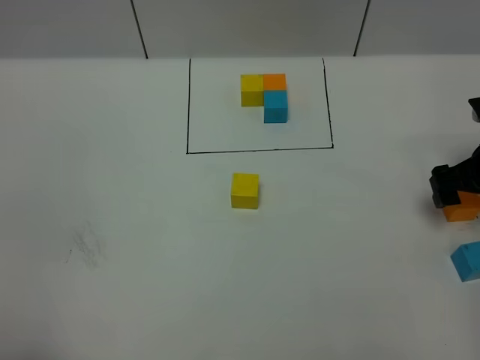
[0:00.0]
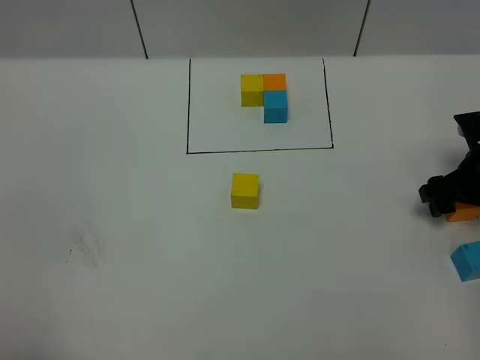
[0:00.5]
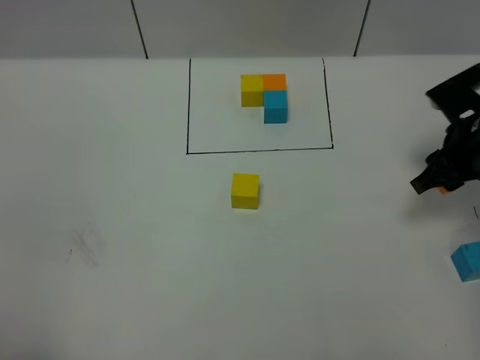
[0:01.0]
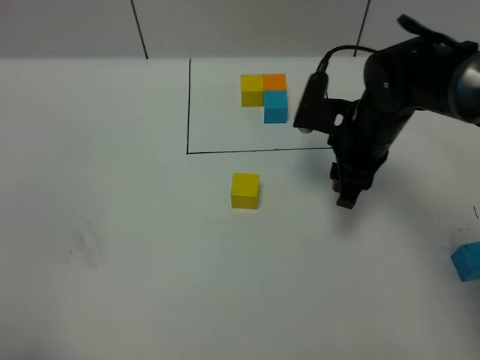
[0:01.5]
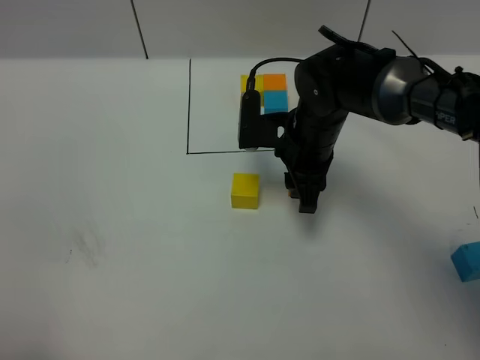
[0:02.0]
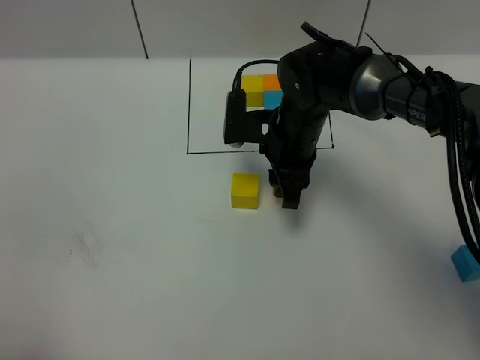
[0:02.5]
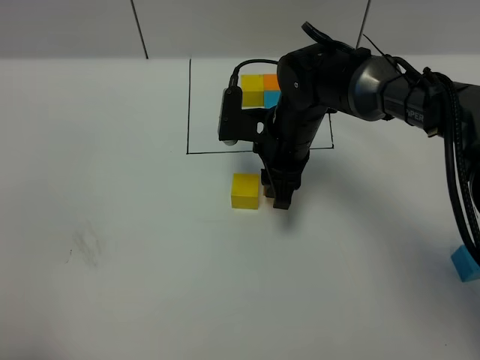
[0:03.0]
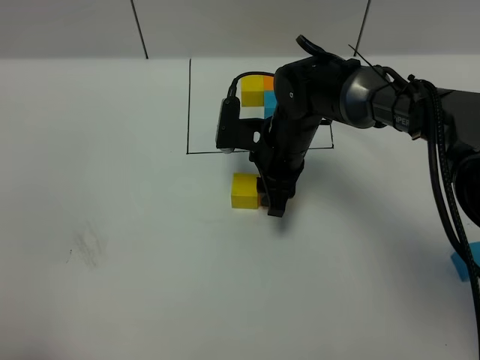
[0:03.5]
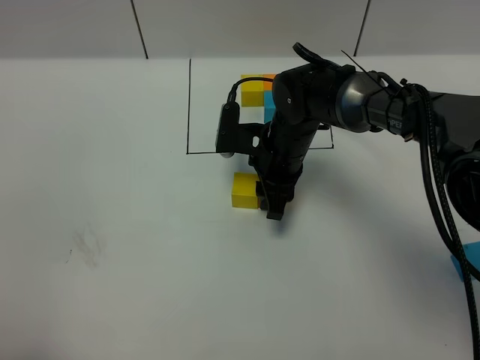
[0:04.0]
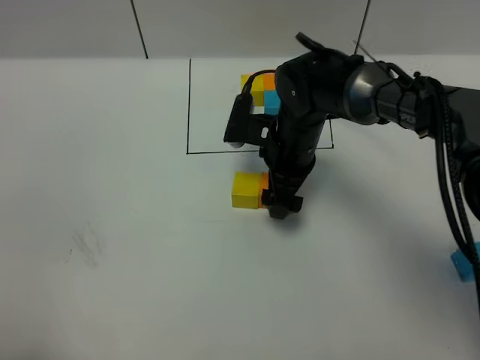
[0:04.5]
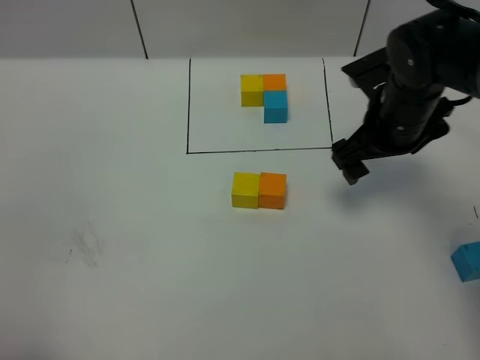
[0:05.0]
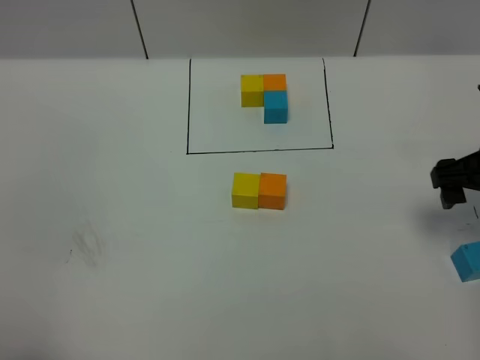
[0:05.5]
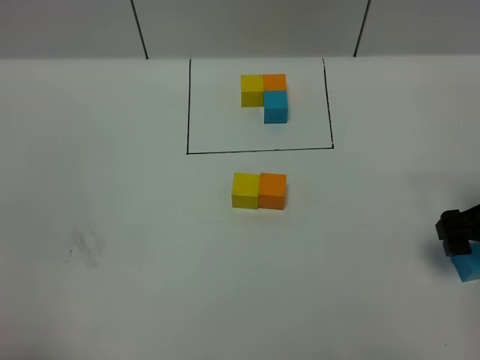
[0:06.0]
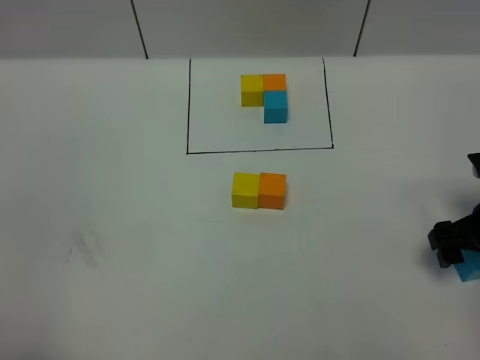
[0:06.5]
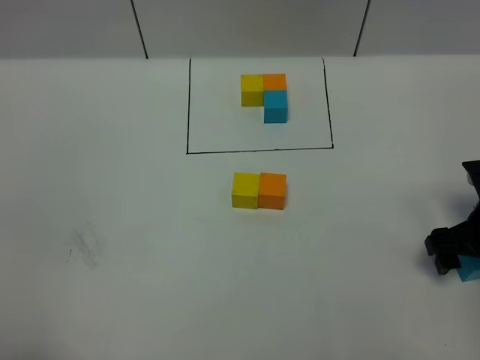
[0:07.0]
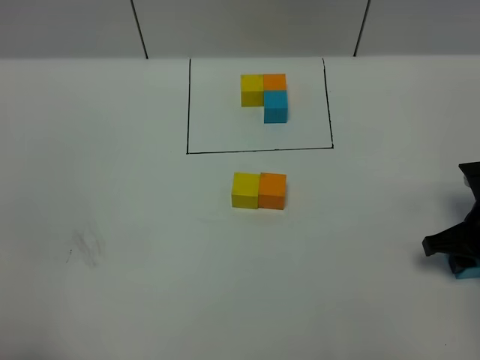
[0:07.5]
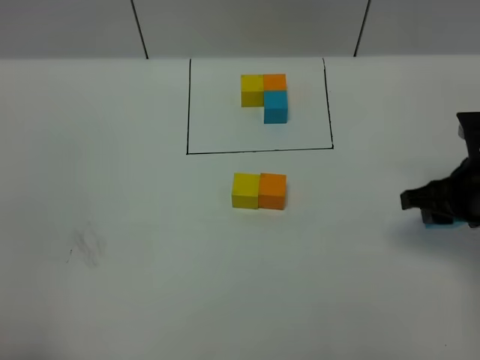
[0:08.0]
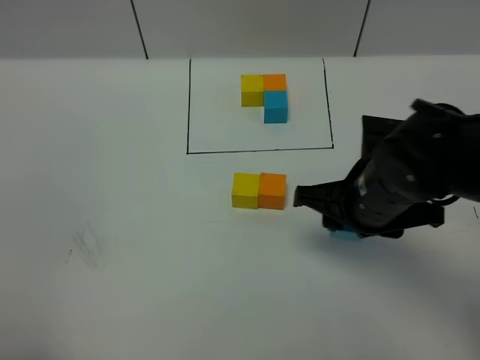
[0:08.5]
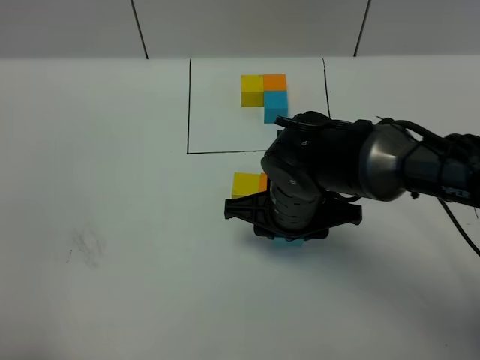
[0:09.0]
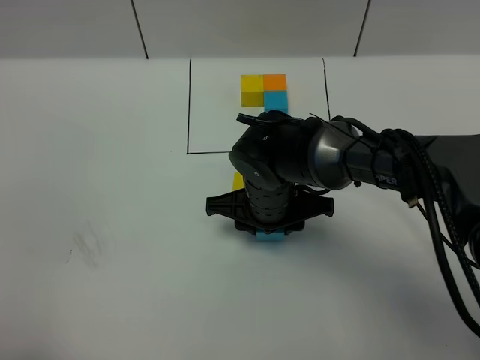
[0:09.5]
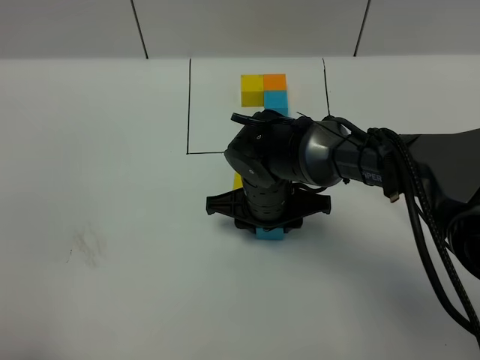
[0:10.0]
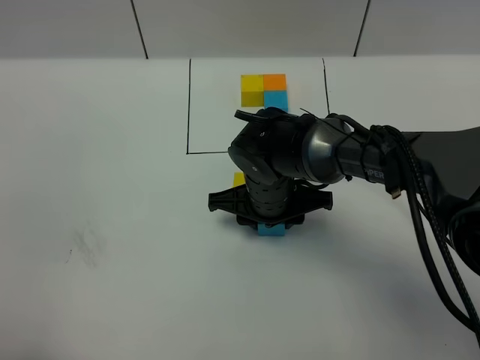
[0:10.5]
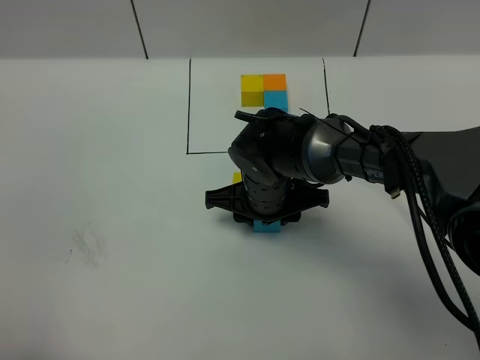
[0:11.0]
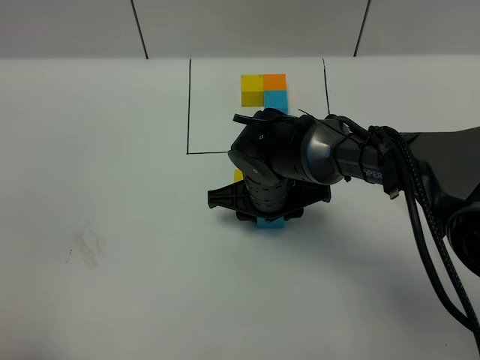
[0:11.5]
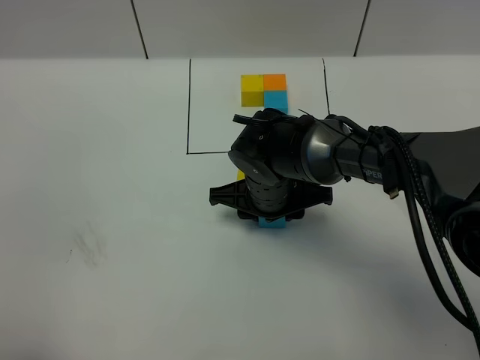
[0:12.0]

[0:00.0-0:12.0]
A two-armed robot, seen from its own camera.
Task of the whole recording: According to the building block template in front, assemble the scattered blocks together.
Step, 0:00.0 to 0:04.5: Put the orange cube on the right of the yellow cube.
0:00.0 to 0:02.0: The right gripper is displaced to the left by approximately 25 cm, and closes.
0:02.0 to 0:04.0: The right gripper shifts by approximately 5 cm.
0:04.0 to 0:06.0: The right gripper moves to the right and backward, some 30 cm, and opens.
0:06.0 to 0:08.0: The right gripper moves approximately 5 cm, and closes.
0:08.0 to 0:10.0: The right gripper shifts approximately 25 cm to the left.
0:10.0 to 0:12.0: The grippers move only a little.

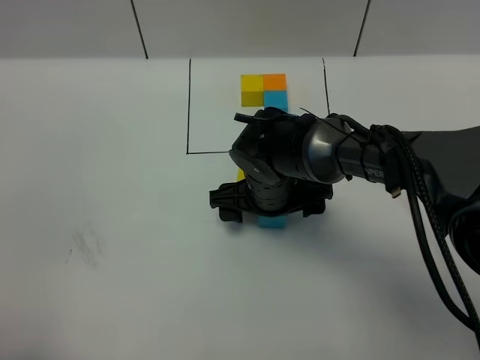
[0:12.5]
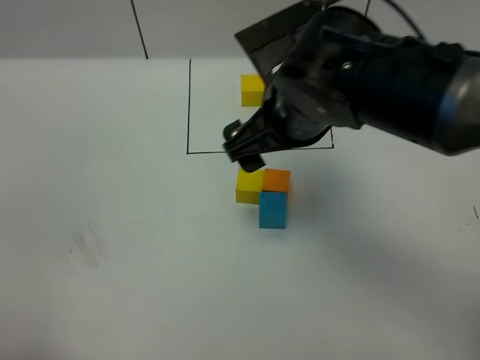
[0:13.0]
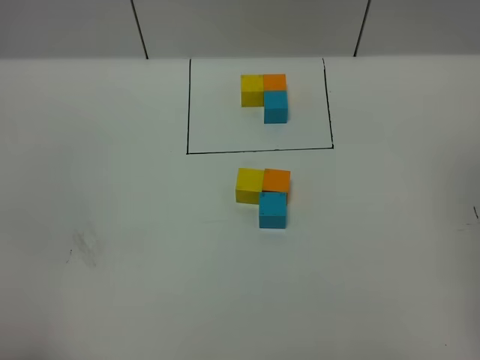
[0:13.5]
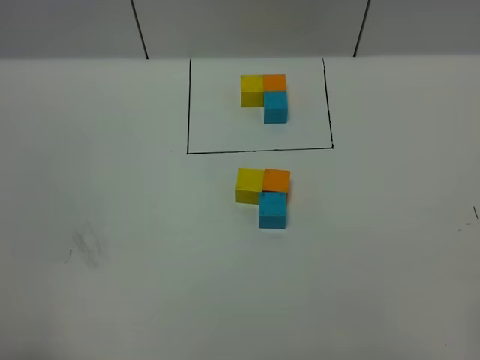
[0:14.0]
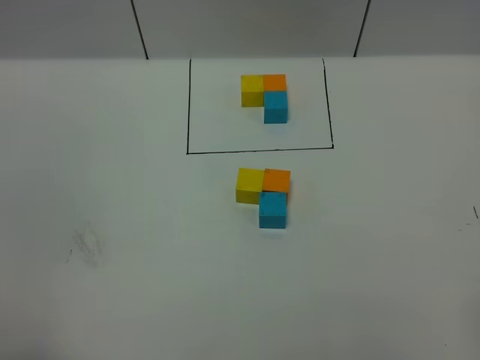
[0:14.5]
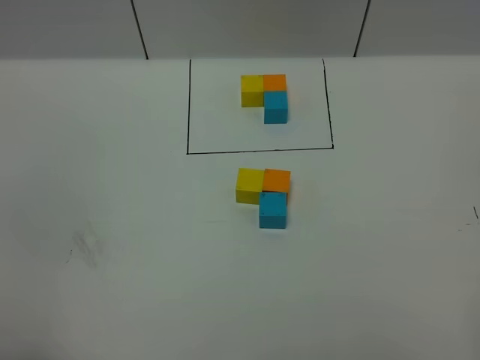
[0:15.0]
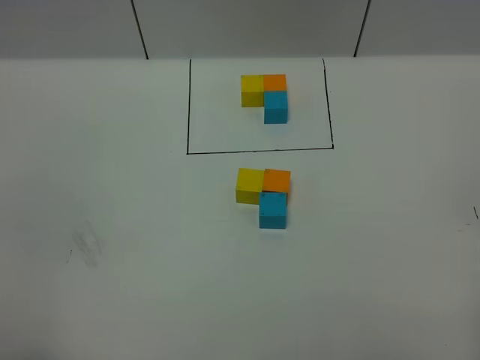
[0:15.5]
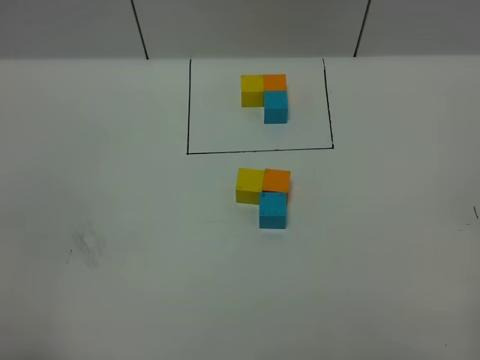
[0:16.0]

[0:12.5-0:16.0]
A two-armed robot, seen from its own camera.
Task of the whole recording: According to the building block template in front, assemble the scattered blocks together.
0:12.5 to 0:14.5: The right gripper is displaced backward, to the right and upward by approximately 60 cm.
